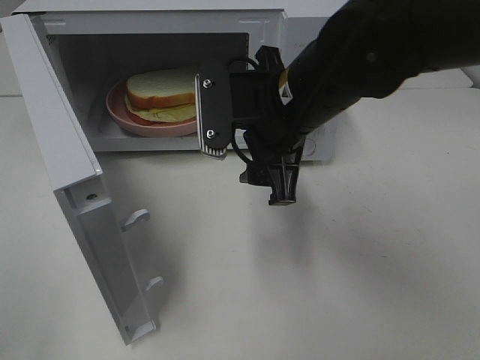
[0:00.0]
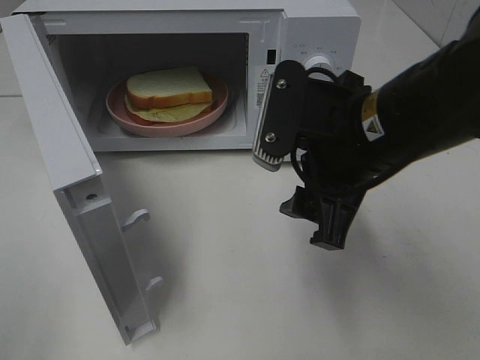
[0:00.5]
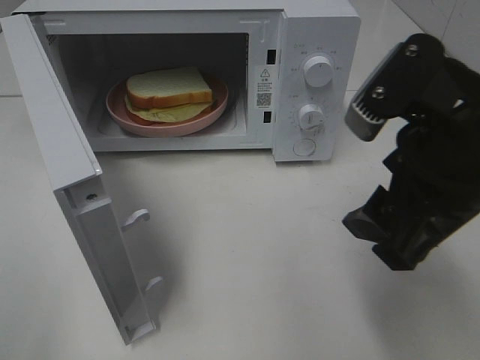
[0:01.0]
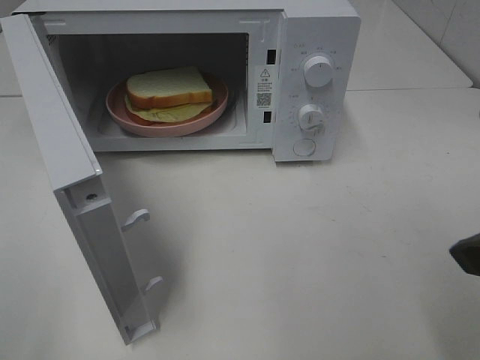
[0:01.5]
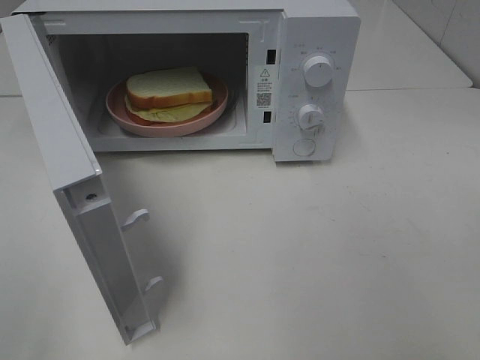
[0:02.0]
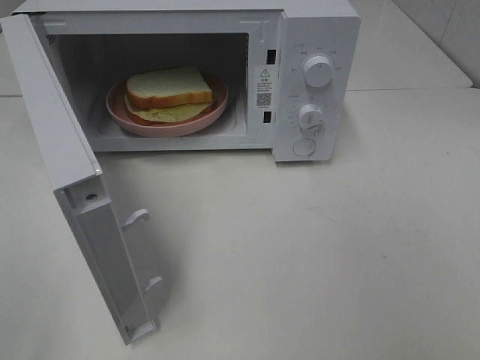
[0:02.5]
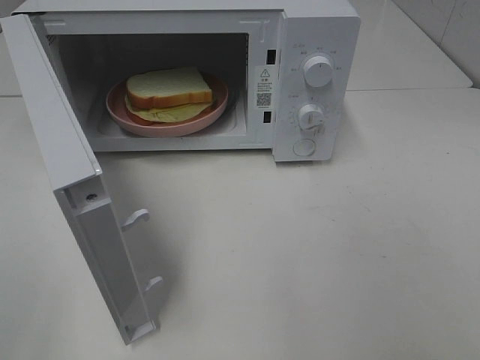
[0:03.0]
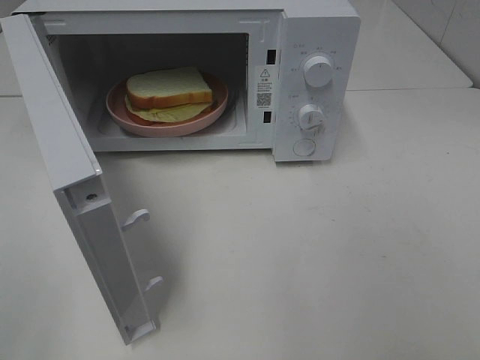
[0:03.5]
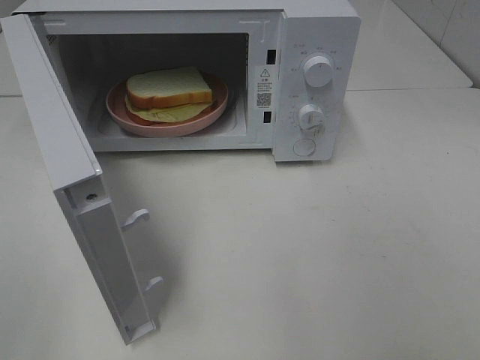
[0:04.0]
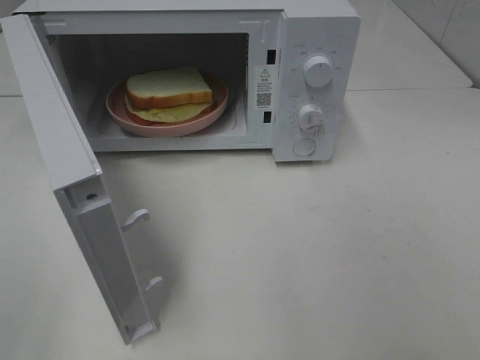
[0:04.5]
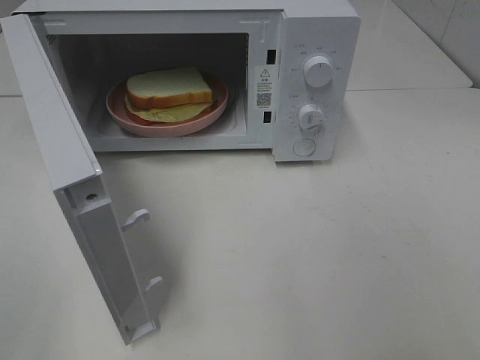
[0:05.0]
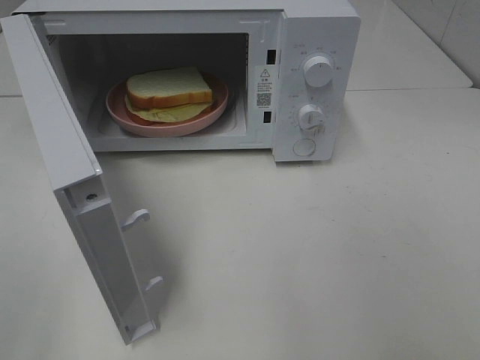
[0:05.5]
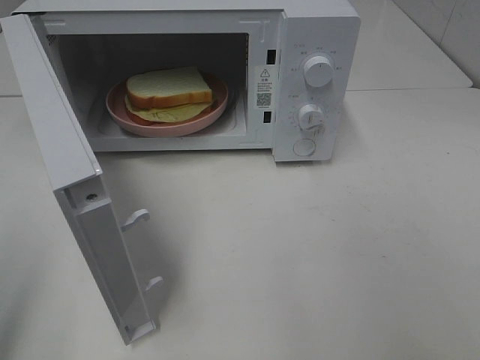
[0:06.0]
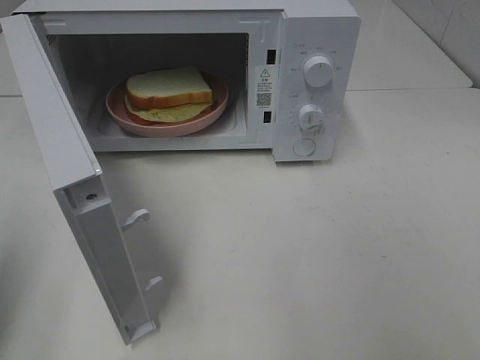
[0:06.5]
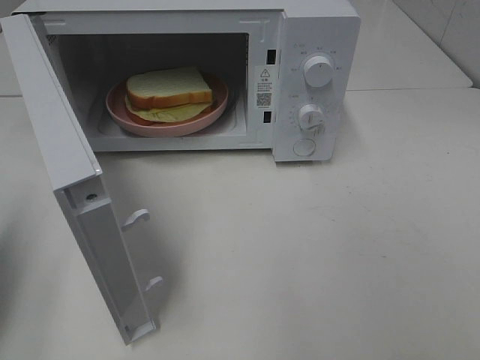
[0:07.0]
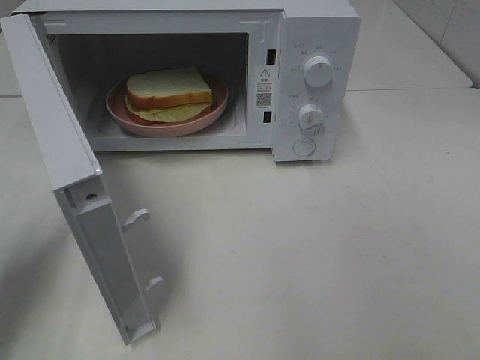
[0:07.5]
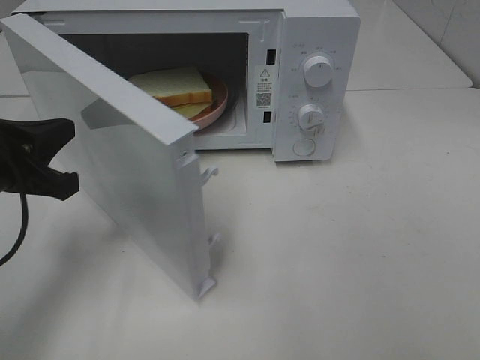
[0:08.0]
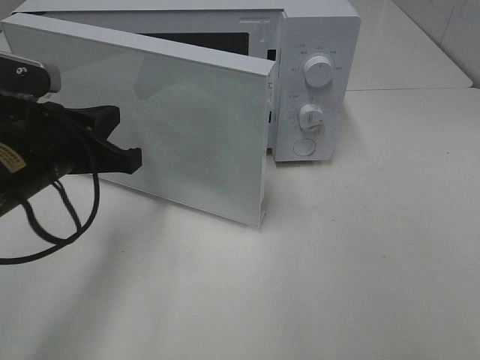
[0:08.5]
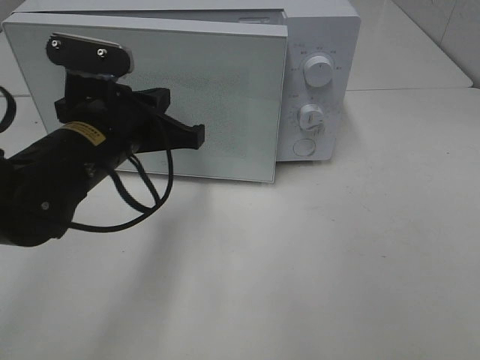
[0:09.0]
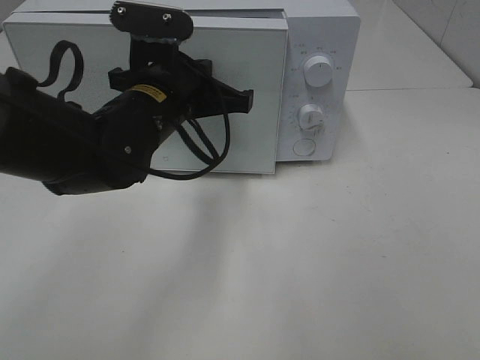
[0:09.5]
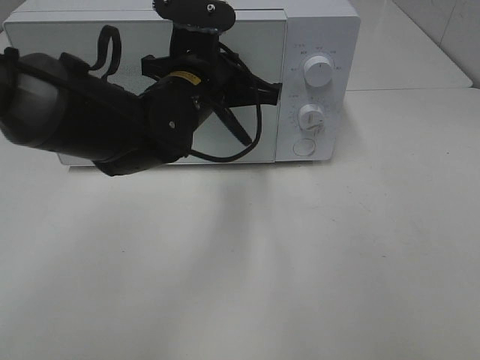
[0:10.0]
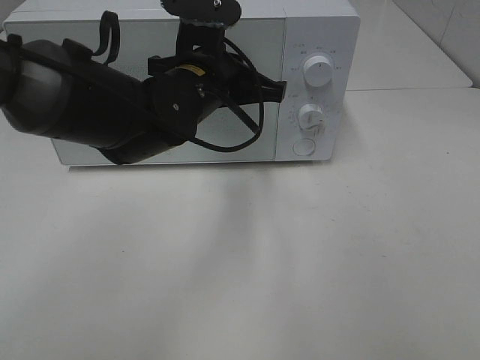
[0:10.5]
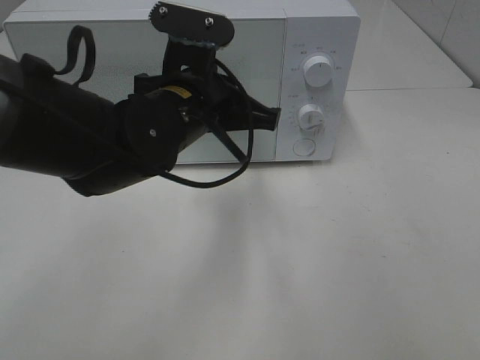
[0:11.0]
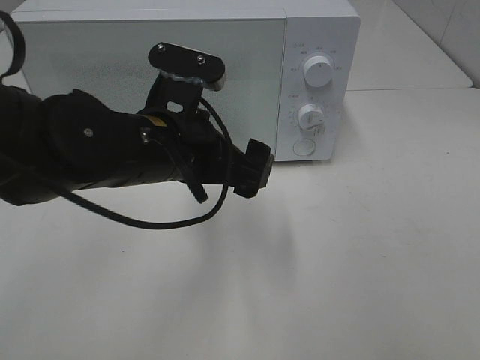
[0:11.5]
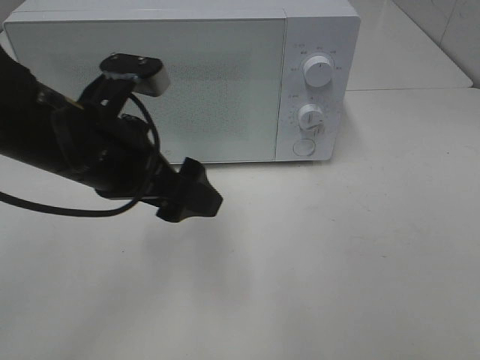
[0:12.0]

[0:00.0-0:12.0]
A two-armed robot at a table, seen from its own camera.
Task of the whole recording: Heat Sandwich.
Step, 0:00.0 to 0:11.0: Left hand: close the microwave door.
0:00.0 to 0:02.0: The right gripper heads backward and to the right, covering approximately 30 cm.
0:06.0 to 0:08.0: The left gripper shifts some 25 cm forward, downward and to the right, and closes its fingers.
0:08.0 to 0:10.0: The left gripper travels to the right and forward by about 20 cm.
0:10.0 to 0:12.0: The left gripper moves backward and to the left, some 15 cm, and opens up.

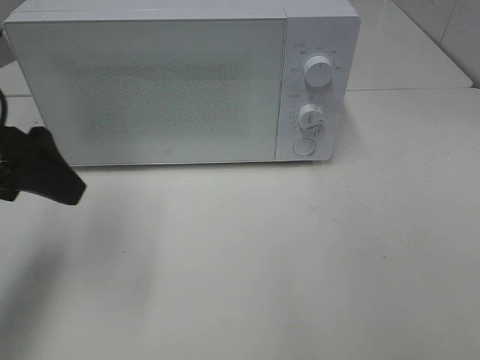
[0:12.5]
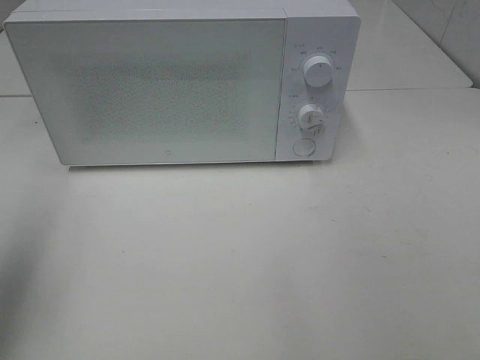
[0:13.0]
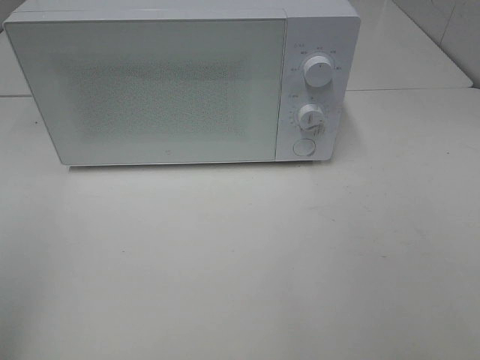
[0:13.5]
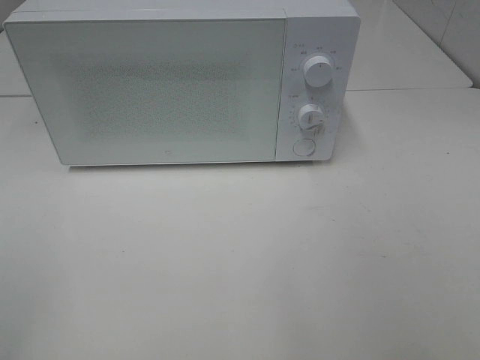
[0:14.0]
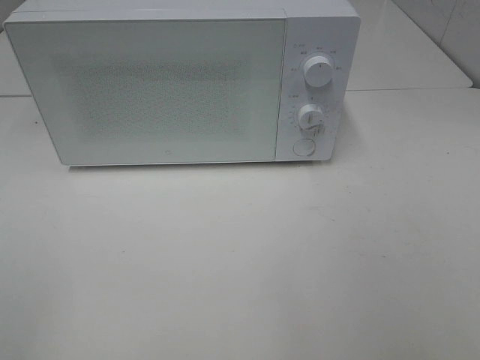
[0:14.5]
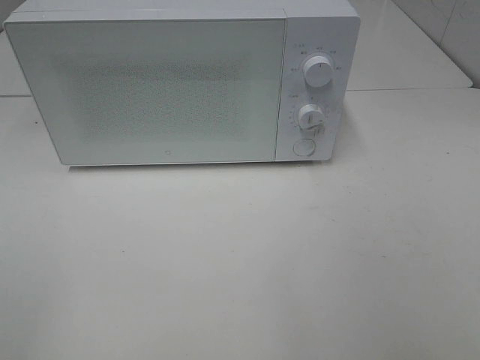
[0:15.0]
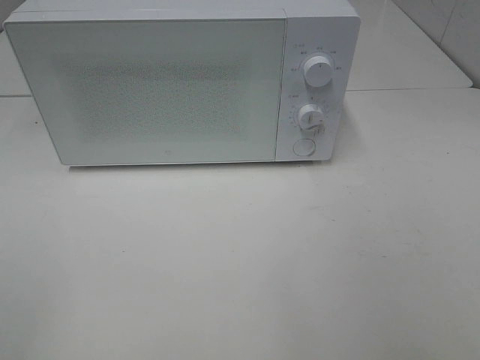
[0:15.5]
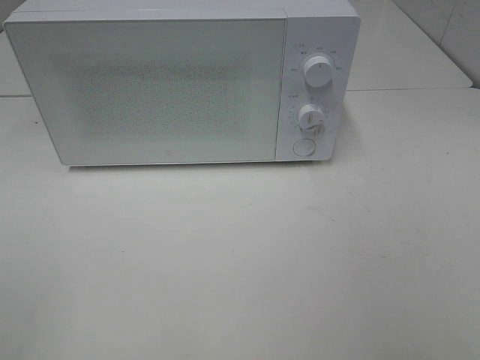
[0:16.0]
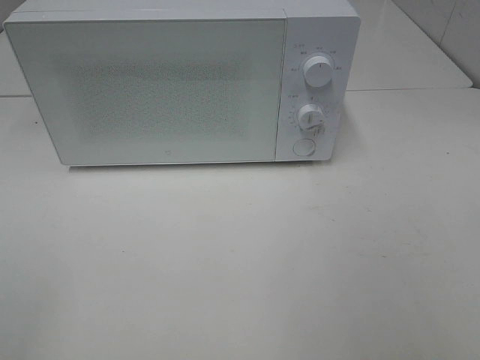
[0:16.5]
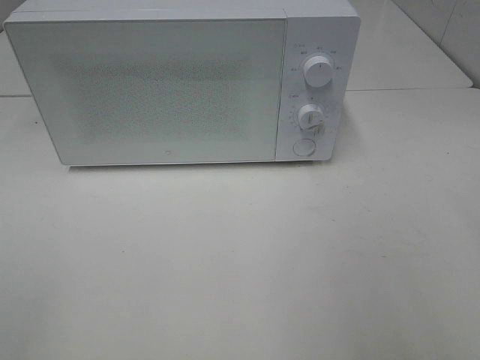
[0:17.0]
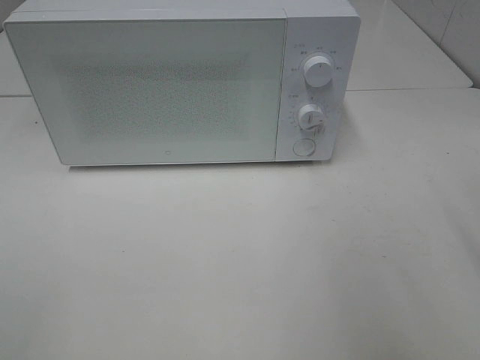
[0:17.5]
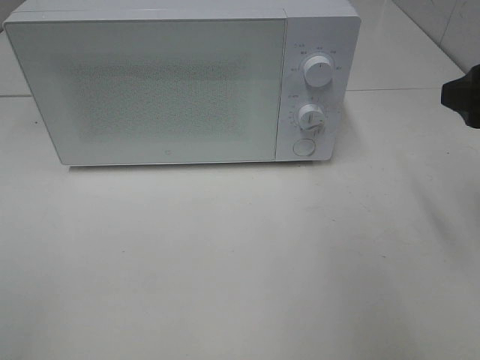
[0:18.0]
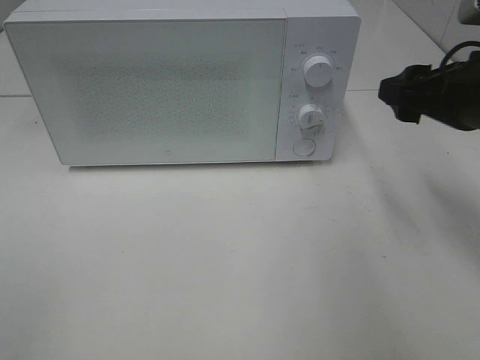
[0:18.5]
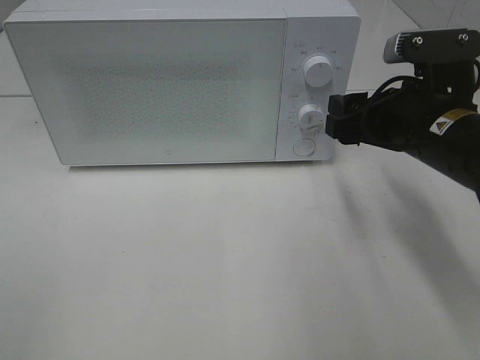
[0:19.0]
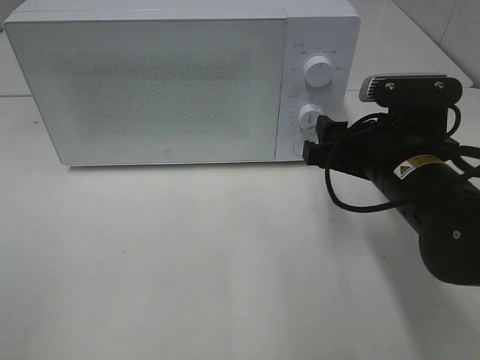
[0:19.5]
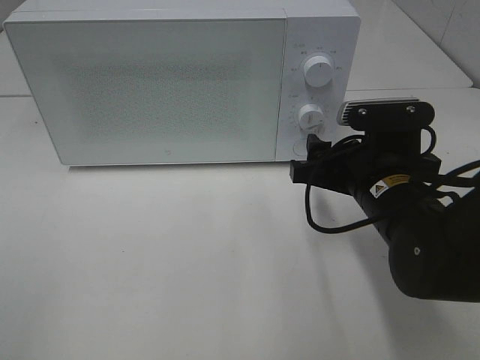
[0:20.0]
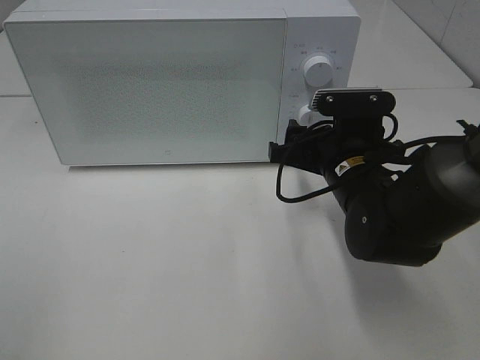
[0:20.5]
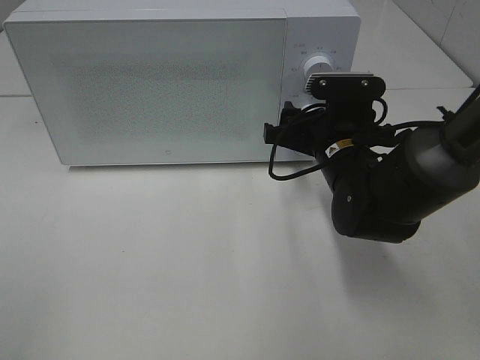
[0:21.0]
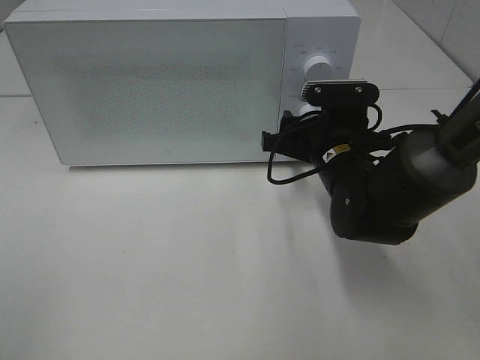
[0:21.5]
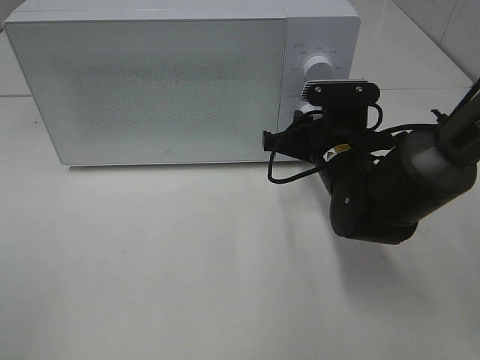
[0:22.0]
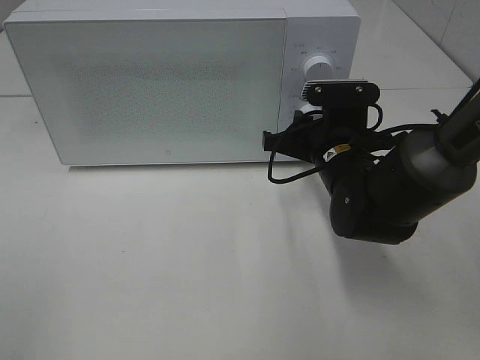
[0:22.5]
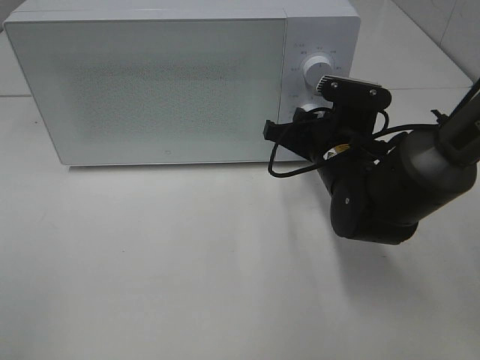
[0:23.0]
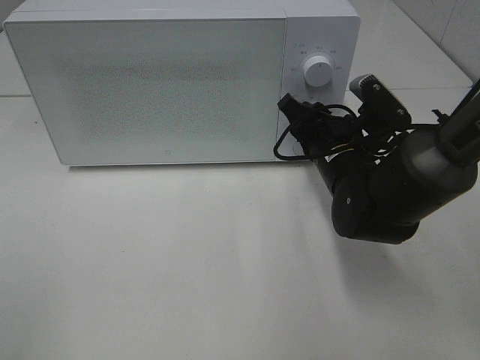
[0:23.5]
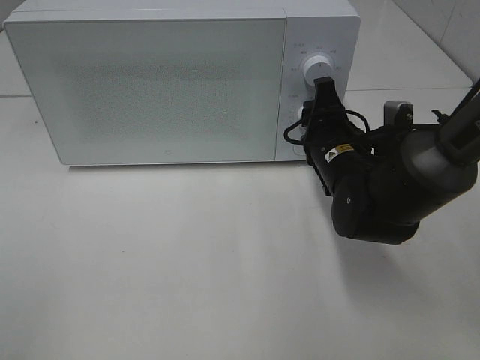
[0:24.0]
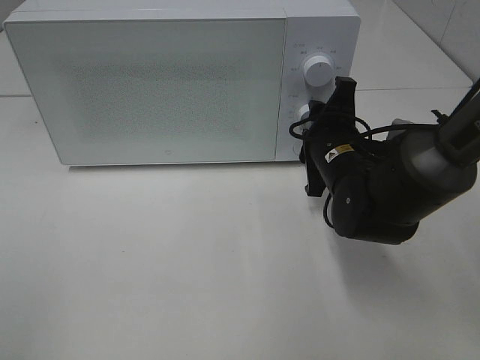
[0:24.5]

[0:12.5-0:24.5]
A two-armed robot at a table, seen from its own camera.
Task of the whole recording: Heat Sandwich.
0:12.5 to 0:14.5: The left gripper is displaced backward by roughly 25 cm.
0:16.5 to 0:18.5: The right gripper shifts approximately 25 cm forward.
0:18.5 to 0:20.5: The right gripper shifts some 15 cm downward and to the left.
0:20.5 to 0:22.5: The right gripper closes up.

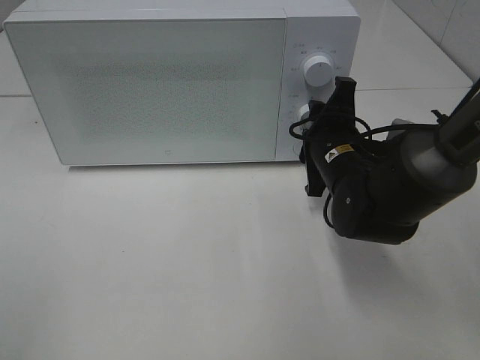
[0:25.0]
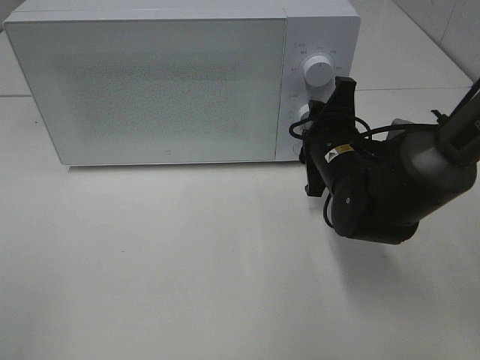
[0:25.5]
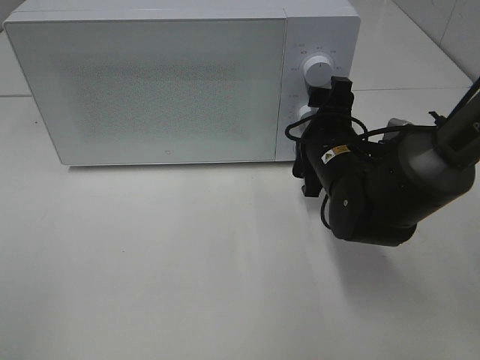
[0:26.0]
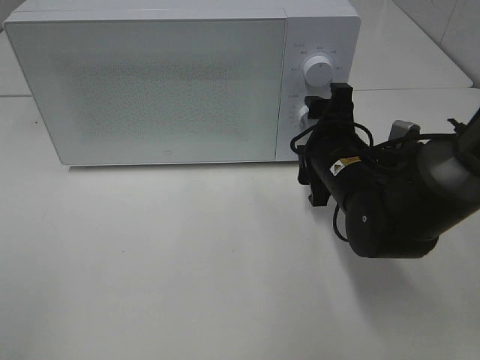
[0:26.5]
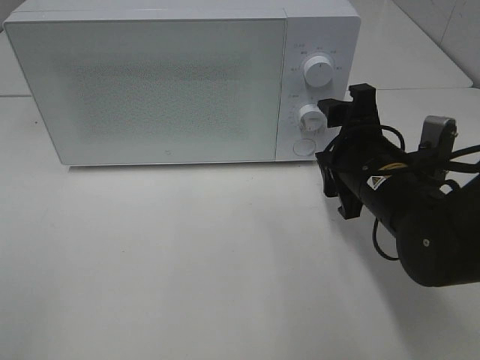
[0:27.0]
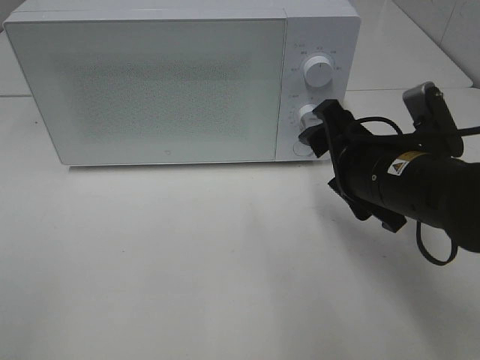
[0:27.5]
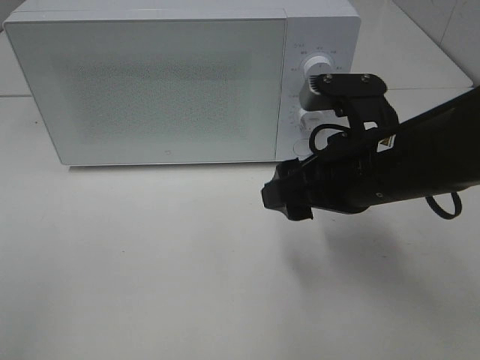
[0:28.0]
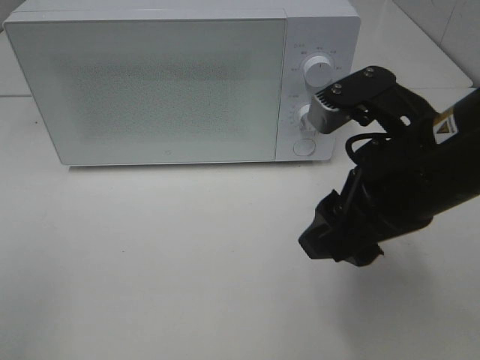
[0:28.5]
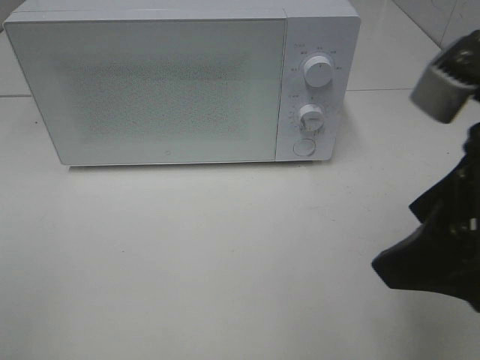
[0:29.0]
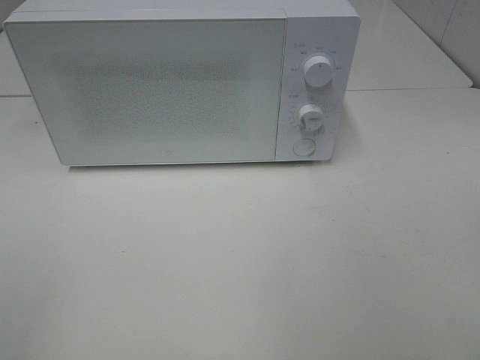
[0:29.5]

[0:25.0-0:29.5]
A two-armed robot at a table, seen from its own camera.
Task of the whole recording: Heat Sandwich.
0:25.0 to 0:27.0: The right gripper heads backward, covering roughly 5 cm.
0:27.0 to 0:29.5: The right gripper goes roughly 30 cm backward, upward and to the right.
